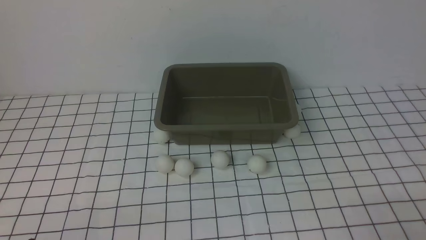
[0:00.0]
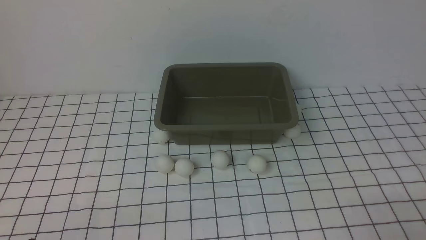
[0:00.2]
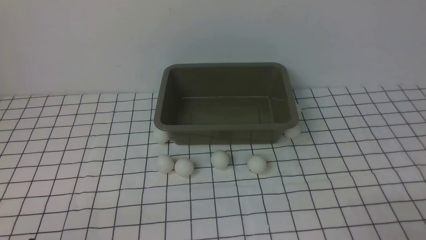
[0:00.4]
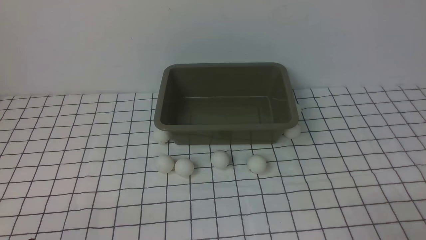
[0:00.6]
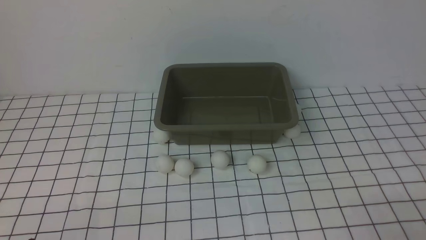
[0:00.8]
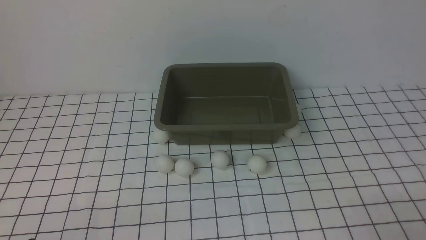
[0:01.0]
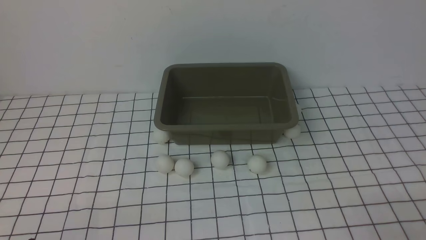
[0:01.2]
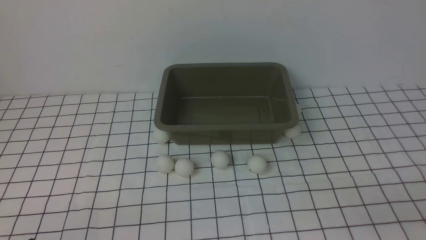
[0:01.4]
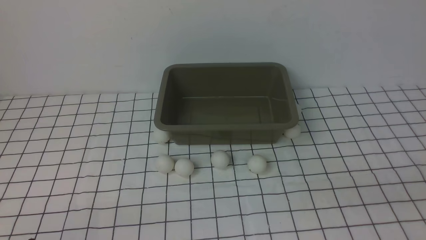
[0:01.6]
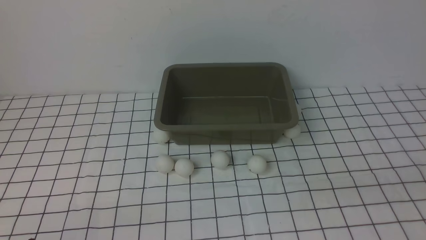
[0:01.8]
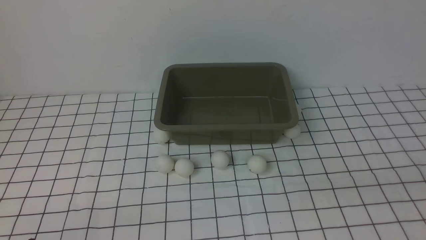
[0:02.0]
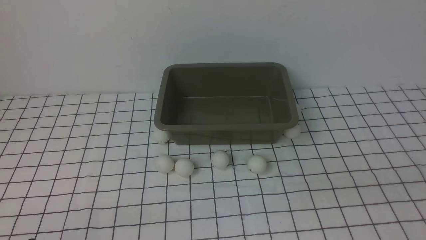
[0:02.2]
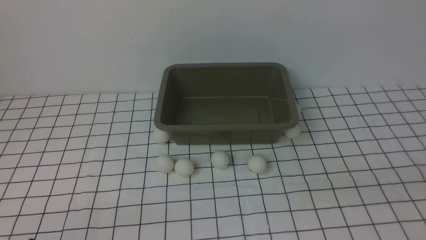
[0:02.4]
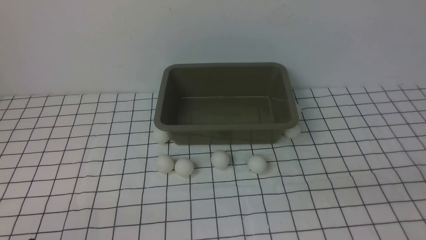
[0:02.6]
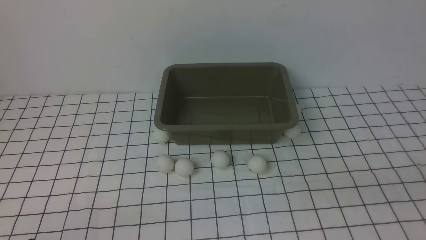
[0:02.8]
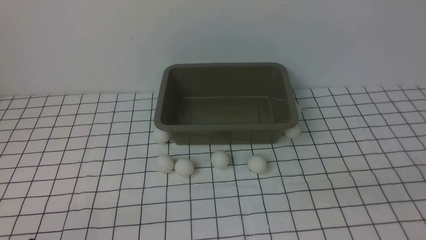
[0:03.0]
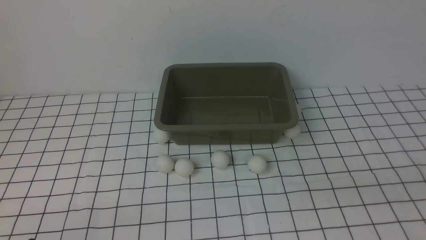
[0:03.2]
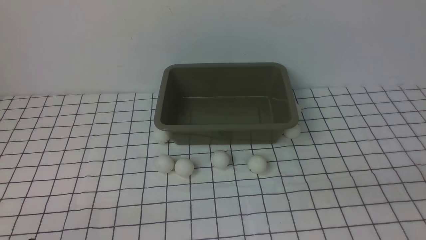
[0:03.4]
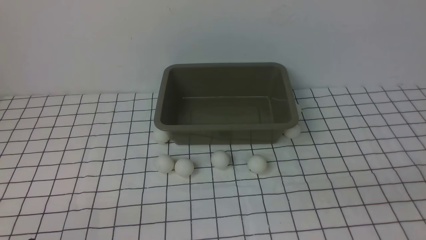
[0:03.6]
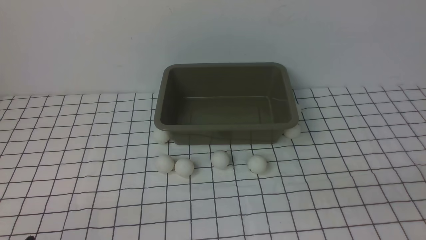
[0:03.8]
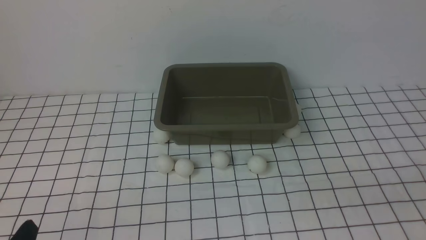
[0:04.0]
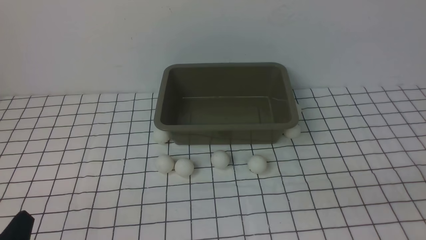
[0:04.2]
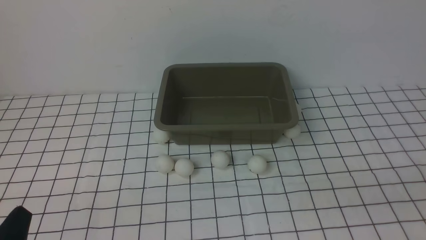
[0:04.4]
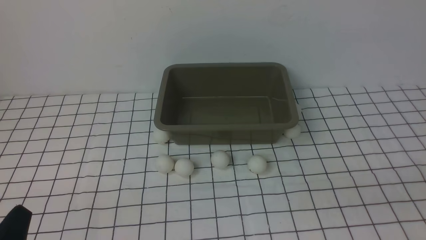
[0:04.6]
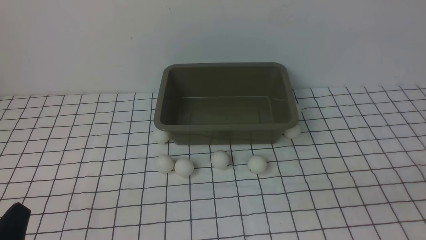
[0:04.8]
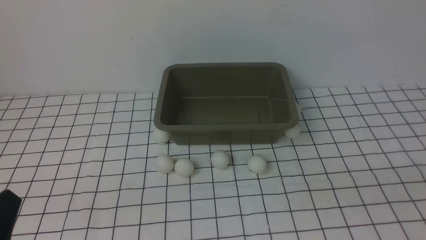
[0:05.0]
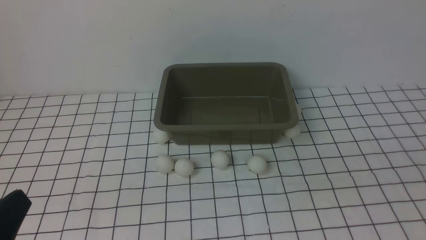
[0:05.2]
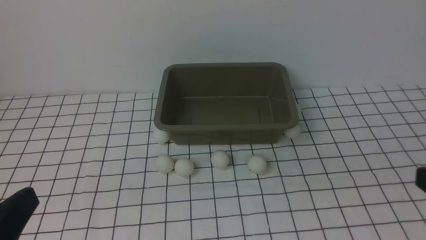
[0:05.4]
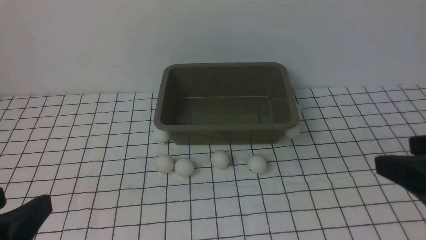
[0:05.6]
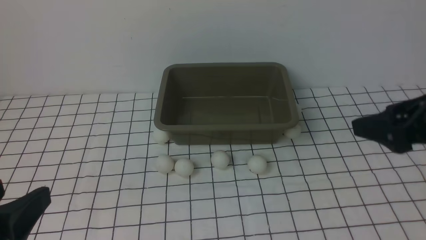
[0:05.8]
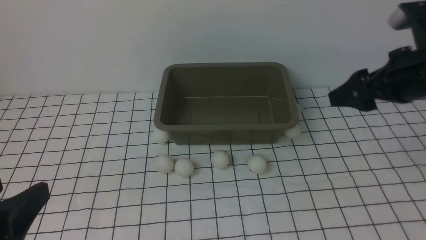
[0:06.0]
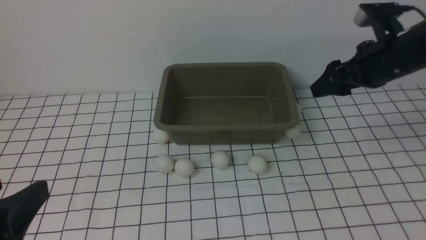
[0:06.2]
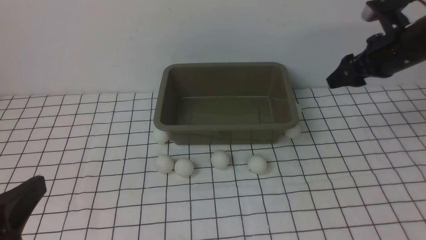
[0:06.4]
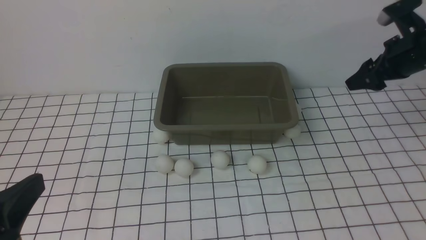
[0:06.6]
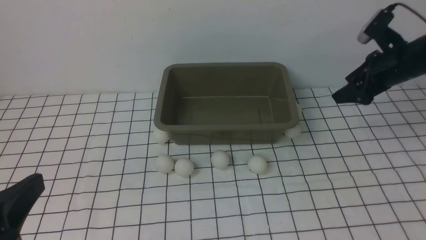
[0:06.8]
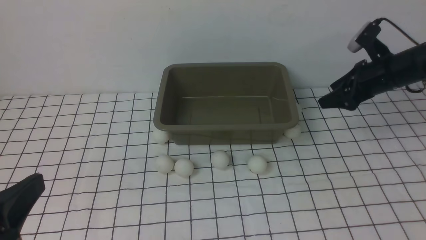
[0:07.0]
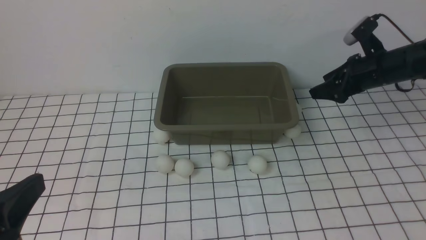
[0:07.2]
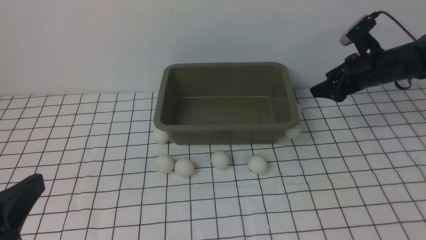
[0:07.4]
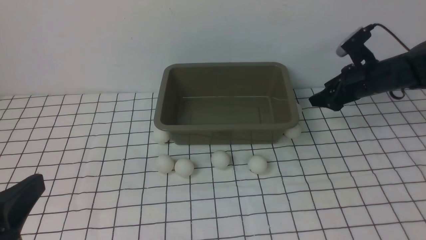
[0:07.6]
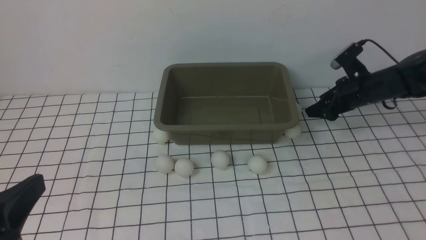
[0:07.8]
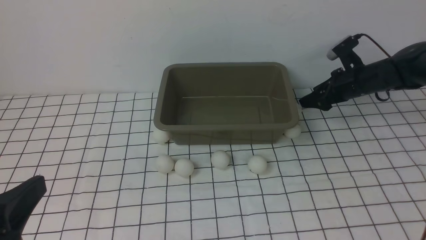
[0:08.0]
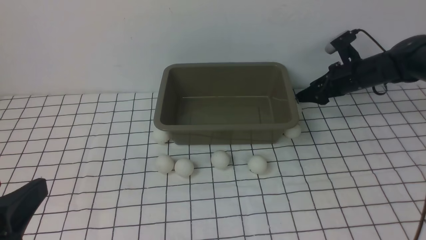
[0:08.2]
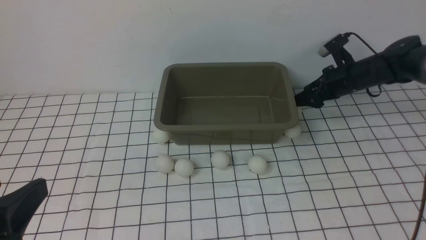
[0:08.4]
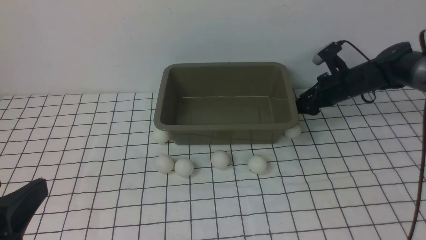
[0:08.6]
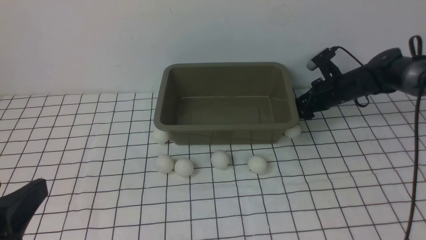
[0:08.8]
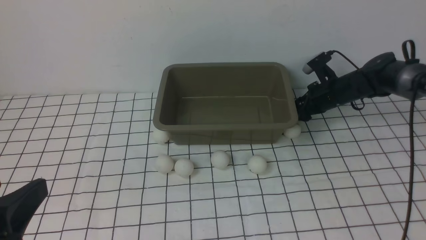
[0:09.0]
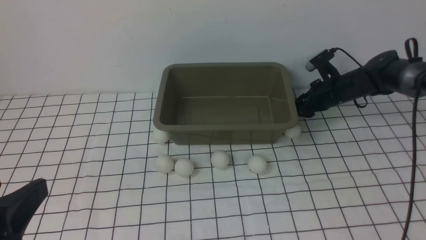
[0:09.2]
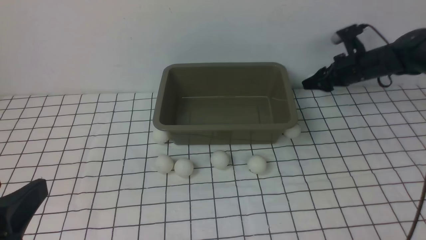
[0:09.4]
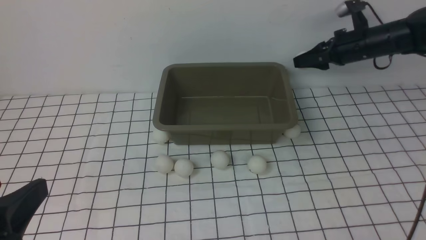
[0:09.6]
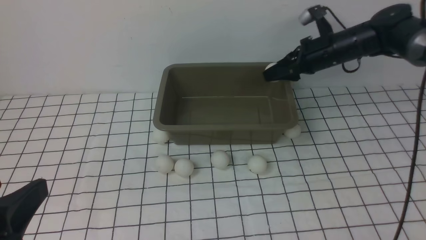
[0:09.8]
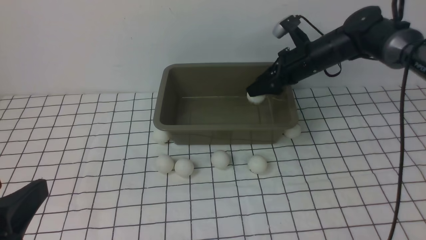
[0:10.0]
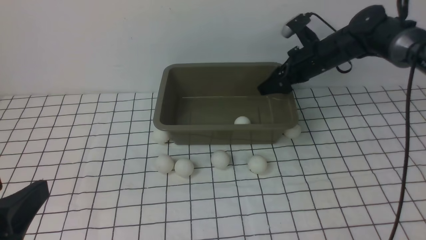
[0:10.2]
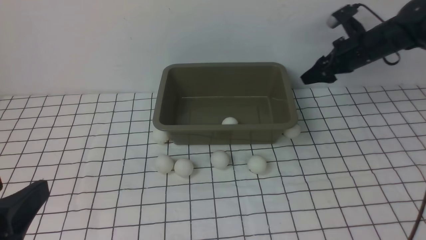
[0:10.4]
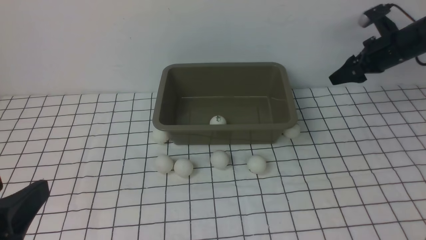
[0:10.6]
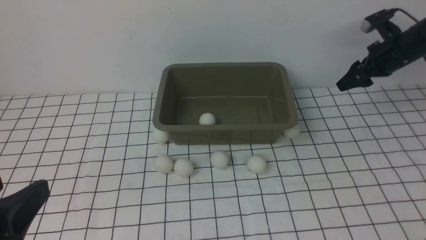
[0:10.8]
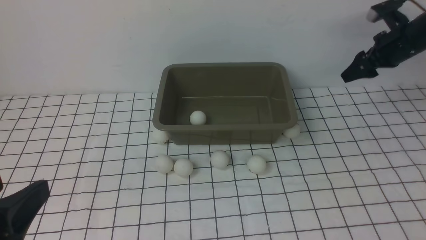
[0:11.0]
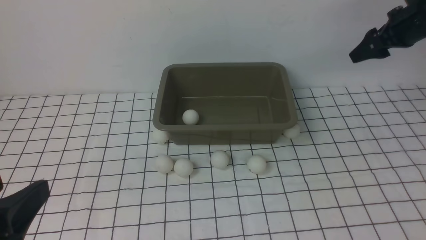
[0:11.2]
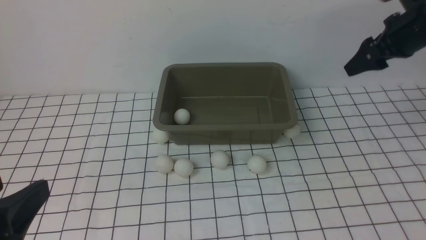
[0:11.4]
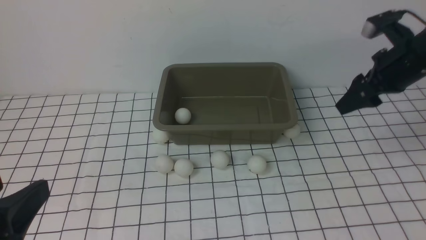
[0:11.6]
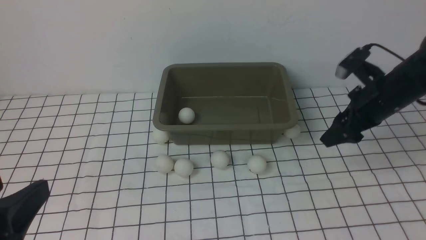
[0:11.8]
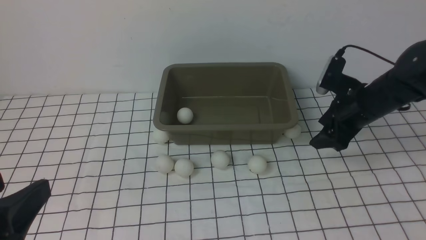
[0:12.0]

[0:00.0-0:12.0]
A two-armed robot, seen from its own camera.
Step, 0:00.0 to 0:09.4: use the right arm to clamp the table tennis ball closest to it.
Step, 0:09.6 to 0:10.2: use the right arm to put the table tennis ball into the box.
0:04.4 to 0:06.0: The right gripper travels forward by about 30 cm, and opens its fingers. The left gripper heads upward, covering roughly 10 cm.
0:06.0 to 0:07.6: The right gripper is displaced forward and downward by approximately 20 cm.
0:07.6 to 0:09.0: The right gripper heads downward, covering approximately 5 cm, and closes up.
0:09.0 to 0:10.4: The right gripper heads upward, covering some 10 cm, and opens its fingers.
0:10.4 to 0:12.0: The right gripper shifts approximately 10 cm backward.

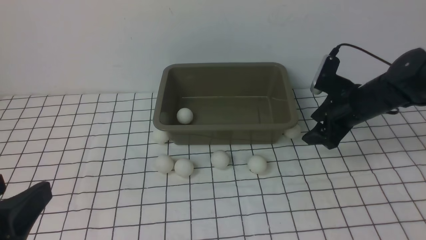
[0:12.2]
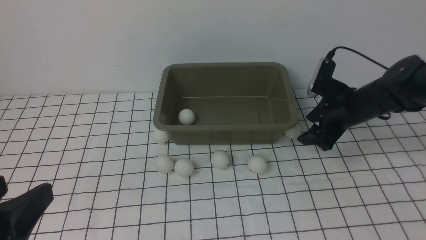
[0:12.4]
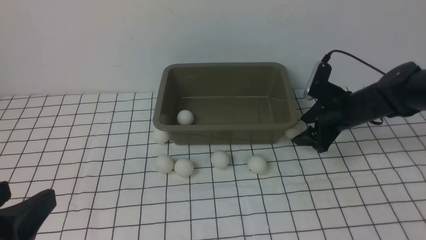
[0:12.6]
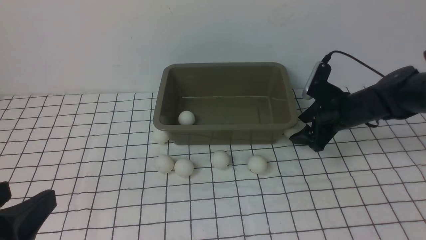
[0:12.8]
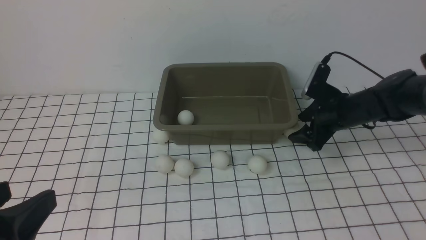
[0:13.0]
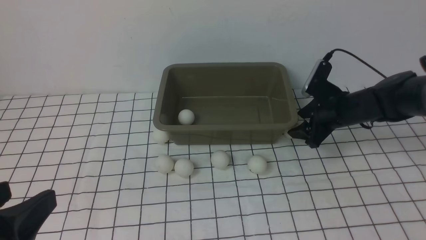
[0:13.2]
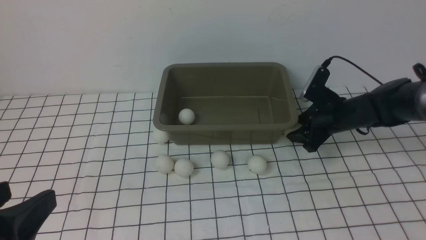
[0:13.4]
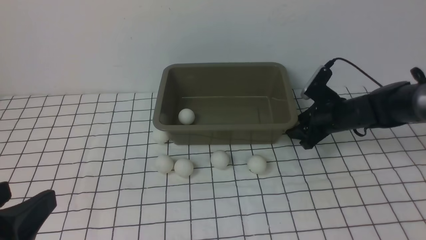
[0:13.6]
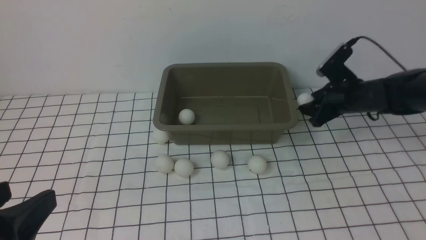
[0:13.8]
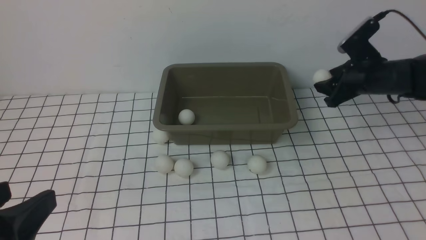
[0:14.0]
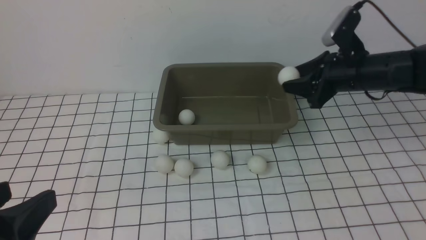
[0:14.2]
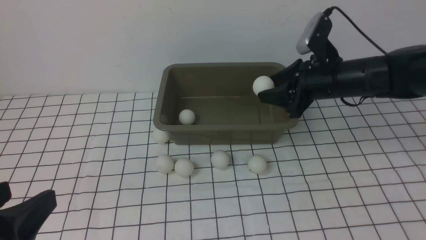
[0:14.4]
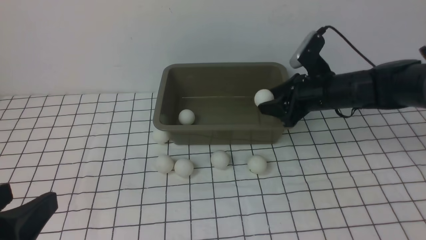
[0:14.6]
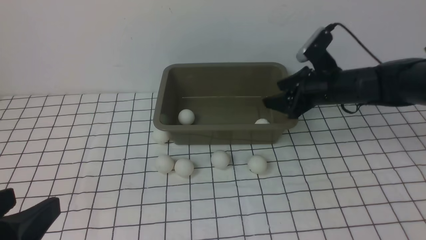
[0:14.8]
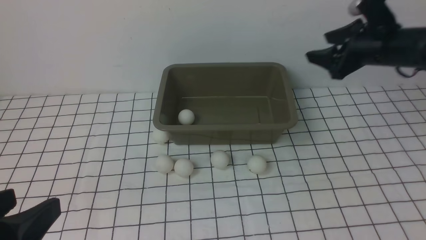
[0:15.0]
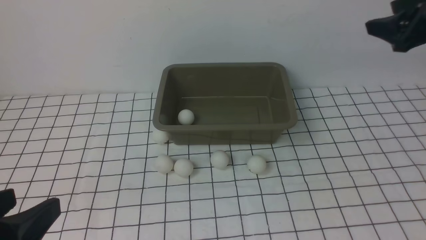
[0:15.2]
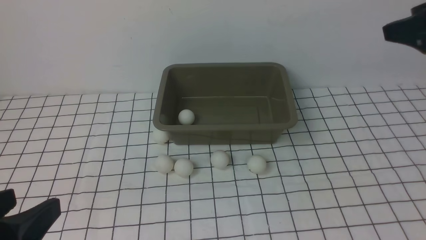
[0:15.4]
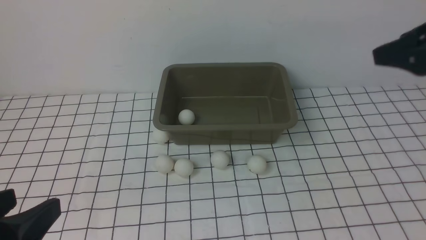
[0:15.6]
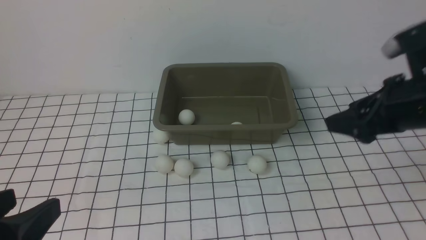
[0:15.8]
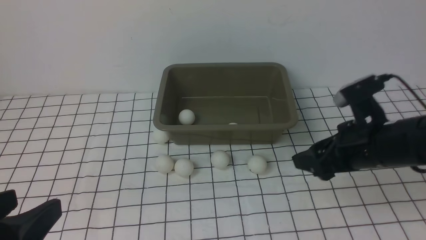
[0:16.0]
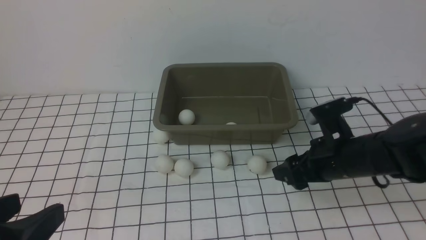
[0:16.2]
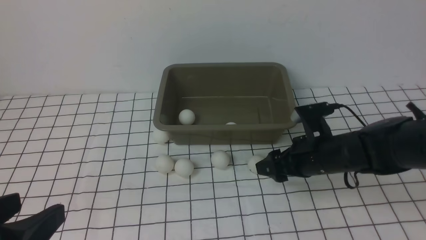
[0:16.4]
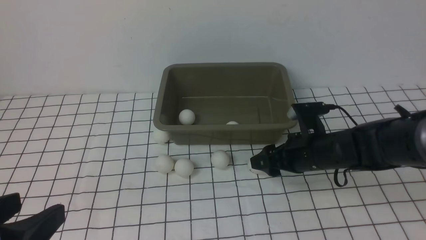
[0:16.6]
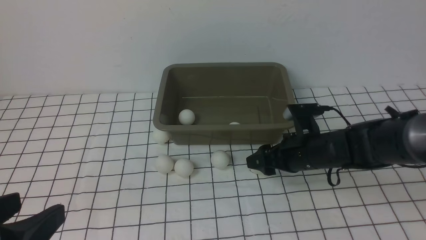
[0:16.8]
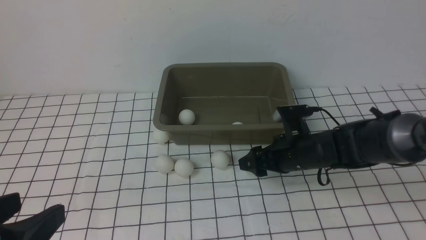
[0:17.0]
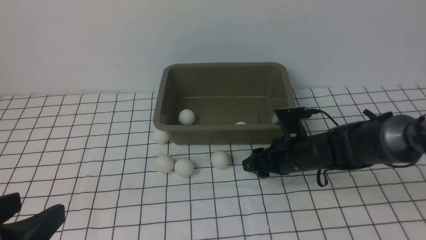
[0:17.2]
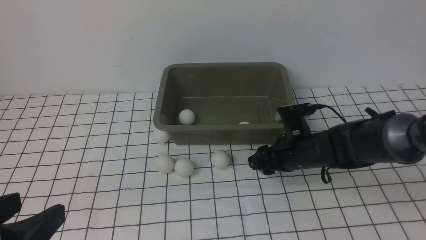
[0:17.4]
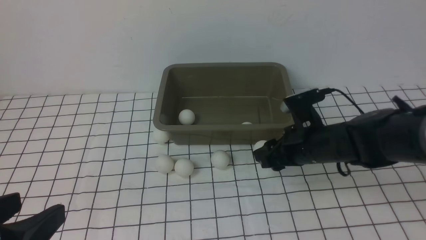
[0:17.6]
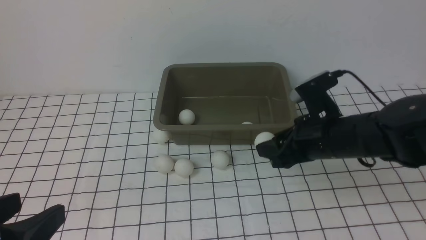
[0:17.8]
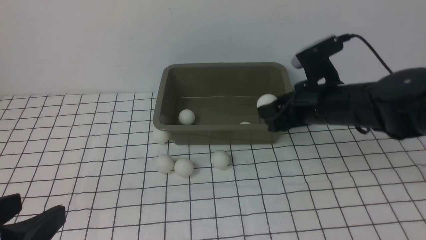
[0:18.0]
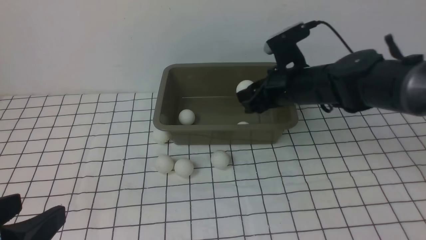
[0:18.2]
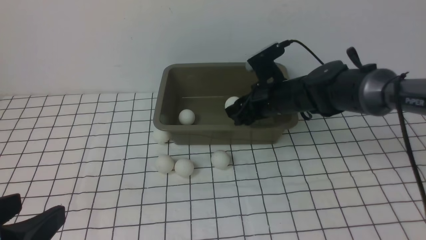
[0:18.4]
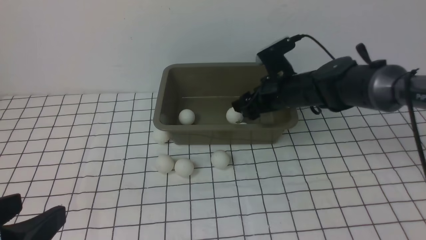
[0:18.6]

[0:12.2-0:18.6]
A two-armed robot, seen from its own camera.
Step, 0:14.0 to 0:14.8: use the right arm to put the table tennis ball into the box.
Step, 0:15.0 to 0:17.6: use the right arm to clamp the table tennis ball closest to it.
0:12.2 to 0:13.8: The right gripper closes.
0:13.8 to 0:15.4: The right gripper moves upward and backward, about 25 cm, and opens up.
0:15.4 to 0:17.0: The right gripper is displaced downward and to the left by approximately 30 cm.
0:17.0 to 0:18.6: The right gripper heads upward and forward, covering approximately 15 cm, and closes, then opens again.
